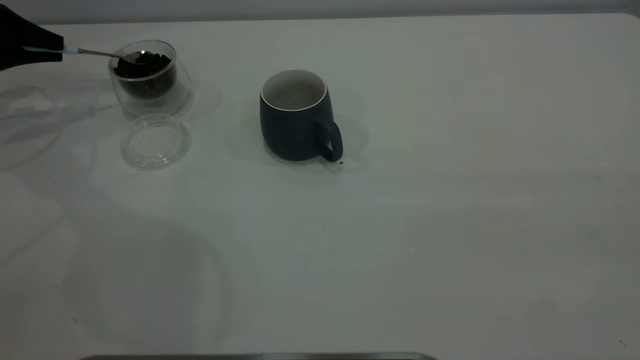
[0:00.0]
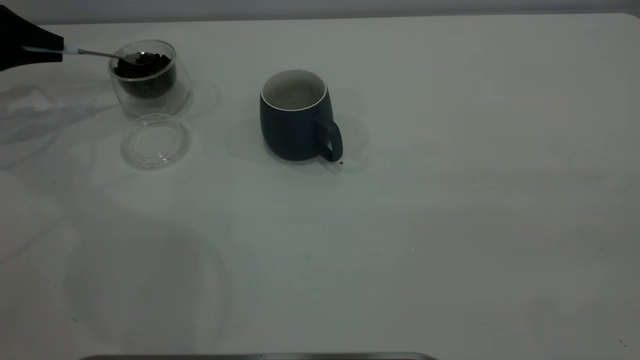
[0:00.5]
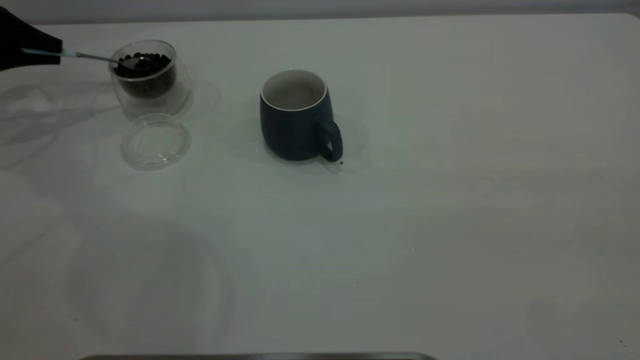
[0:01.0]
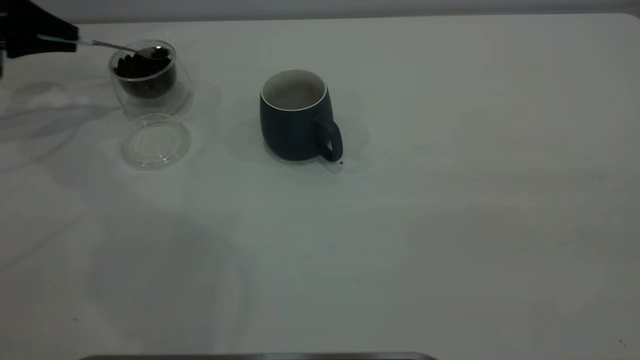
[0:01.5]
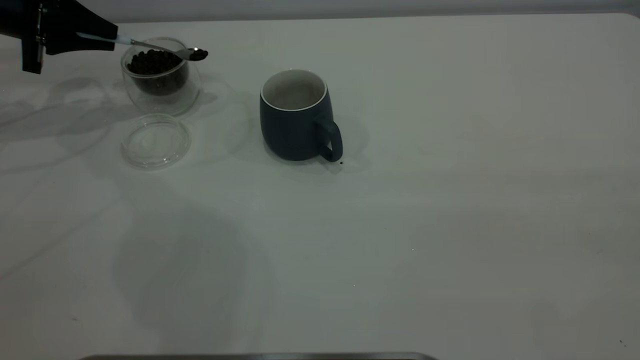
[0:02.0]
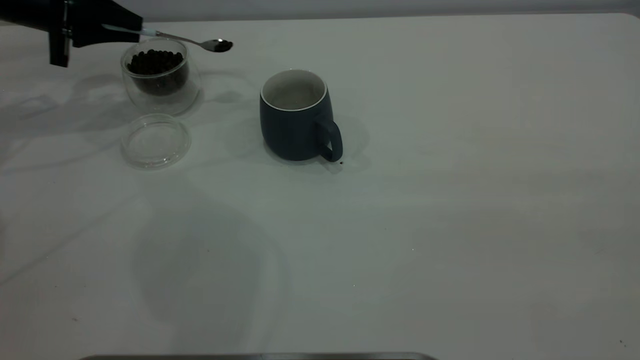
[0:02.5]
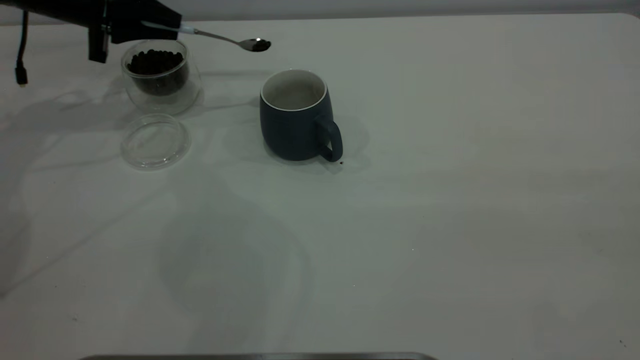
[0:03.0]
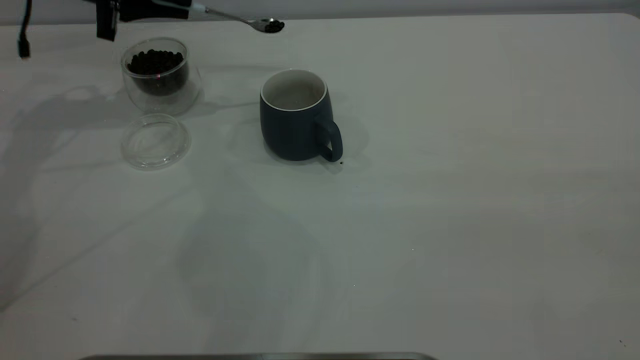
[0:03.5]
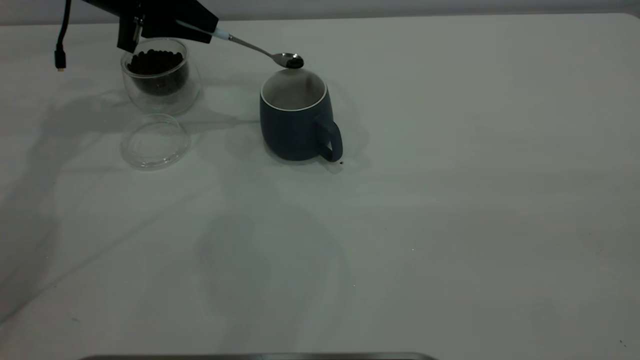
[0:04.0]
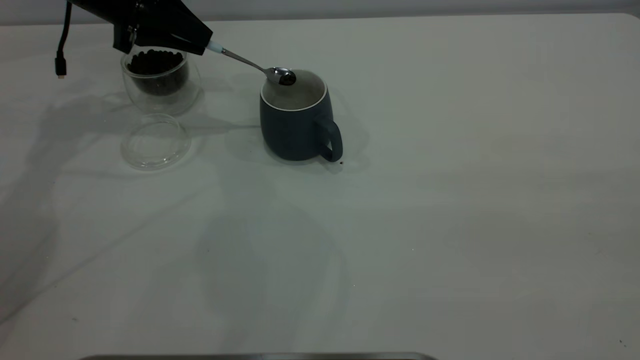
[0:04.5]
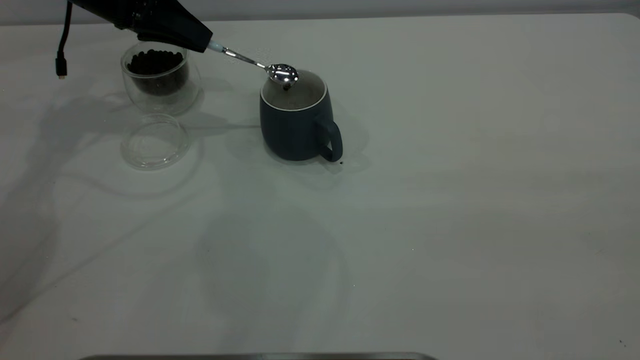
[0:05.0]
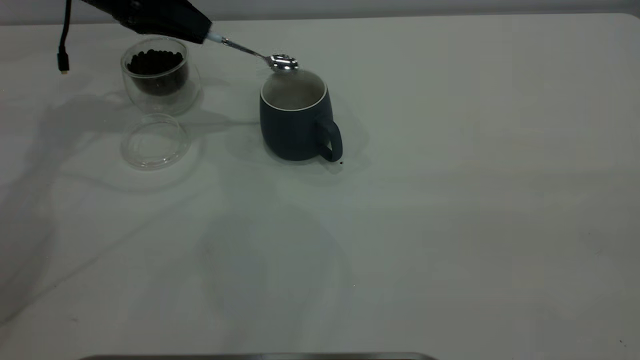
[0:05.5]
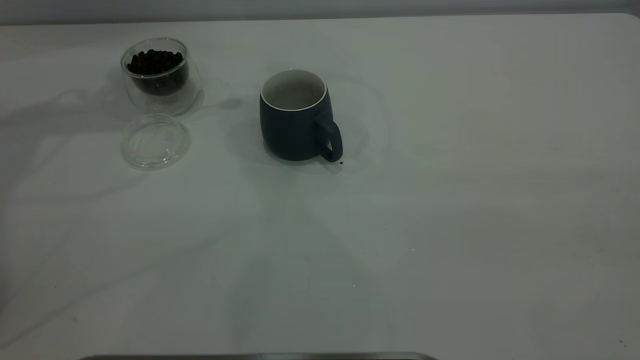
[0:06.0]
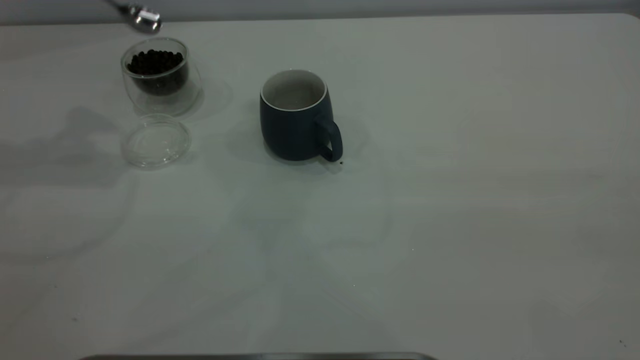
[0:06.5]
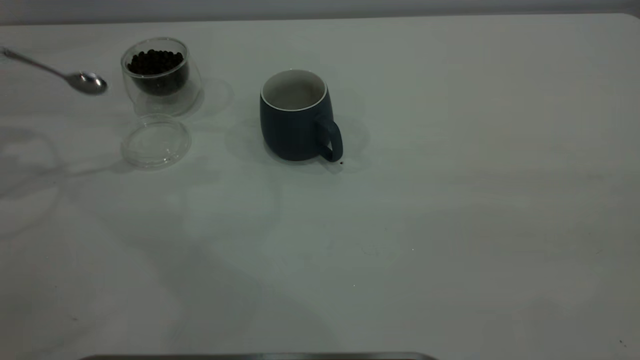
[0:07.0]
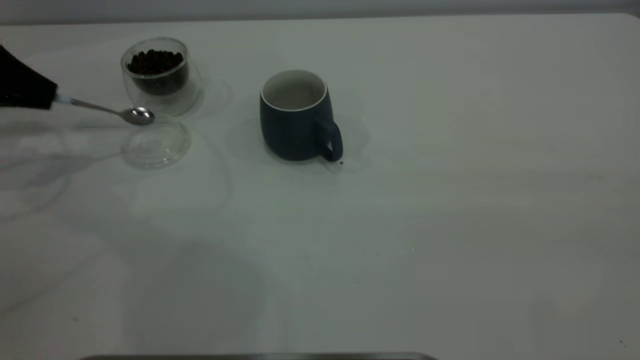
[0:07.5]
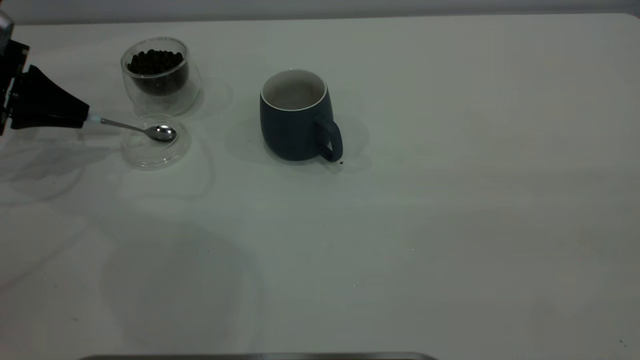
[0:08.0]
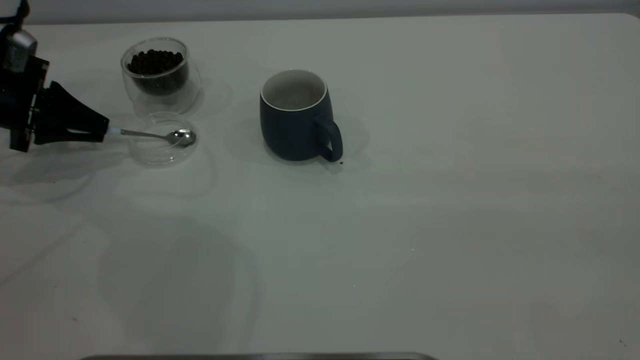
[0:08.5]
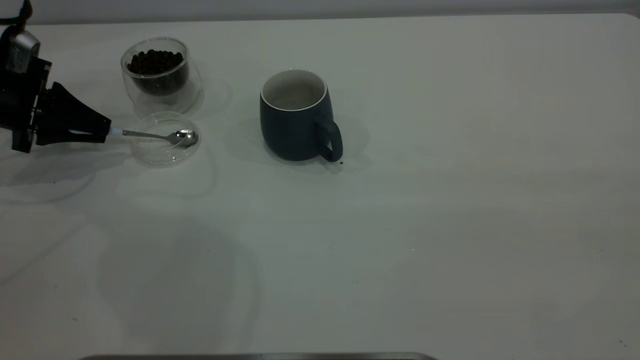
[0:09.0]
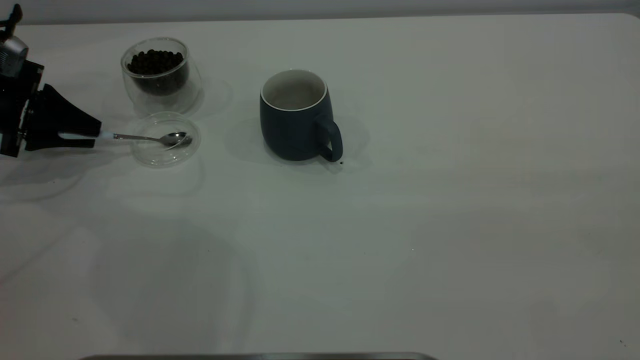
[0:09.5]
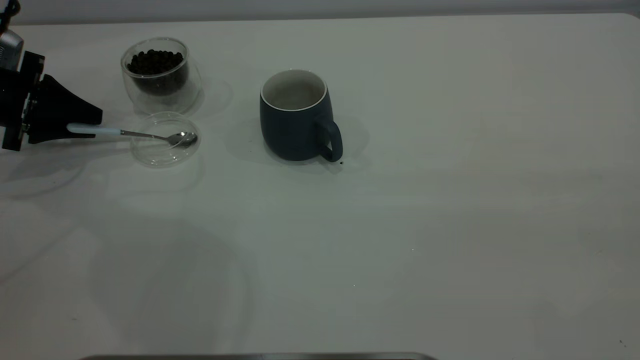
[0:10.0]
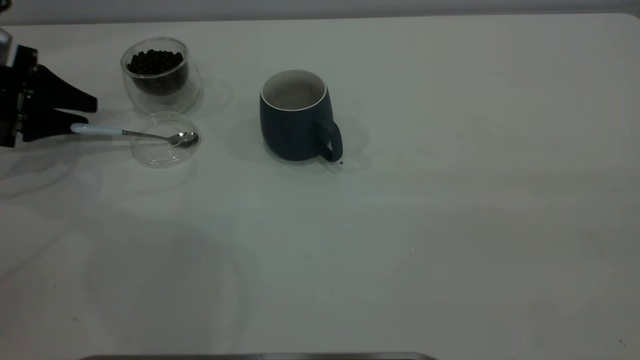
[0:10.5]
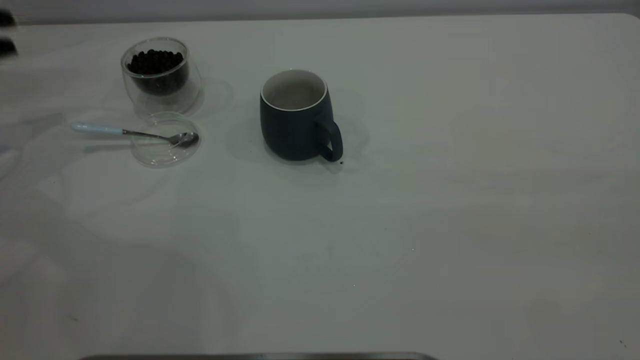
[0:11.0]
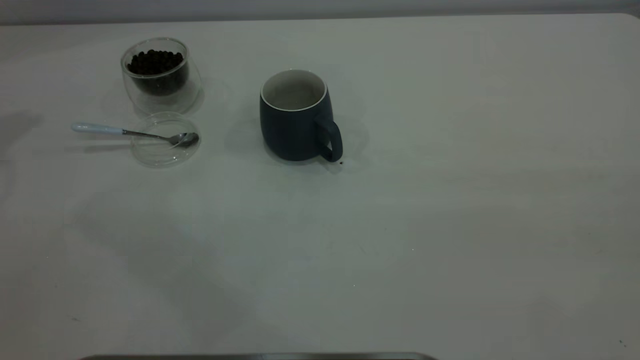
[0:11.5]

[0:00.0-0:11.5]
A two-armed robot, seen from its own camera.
Task of the whole recording: the right gripper place the grey cup in the center of the table, the left gripper take the blue spoon from the cup lid and scoop out the coffee beans from the coffee cup and put them into the grey cup, the left gripper put the spoon back into the cup lid.
Step, 0:00.0 to 0:05.5: Scoop a spoonful of beans into the cup.
Step, 0:06.0 to 0:10.5: Place the spoon back in its original place.
0:00.0 to 0:02.0: The left gripper heads to the right, covering some 5 cm.
0:02.0 to 0:04.0: The left gripper travels to the right by about 15 cm.
0:04.0 to 0:06.0: The left gripper heads upward, covering some 15 cm.
0:06.0 to 0:07.5: The left gripper travels downward, to the left and backward by some 25 cm.
0:07.5 to 0:09.5: The left gripper travels downward by some 5 cm.
0:09.5 to 0:11.5: The left gripper shifts about 35 cm upward, and opens.
